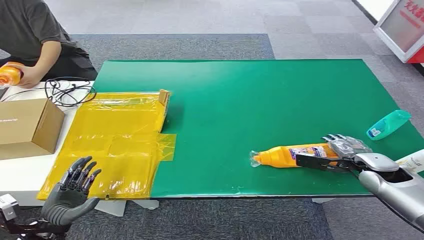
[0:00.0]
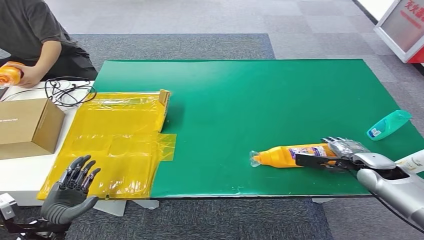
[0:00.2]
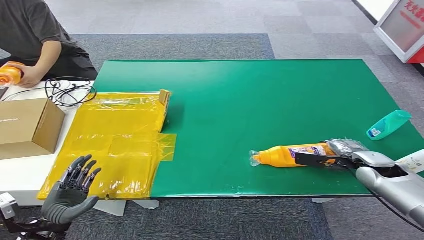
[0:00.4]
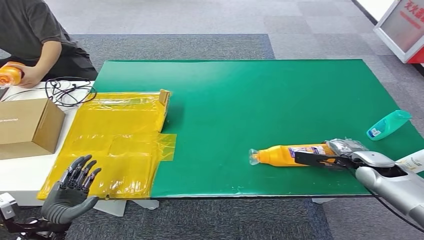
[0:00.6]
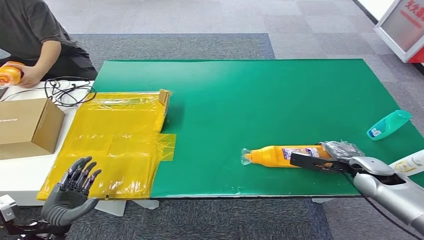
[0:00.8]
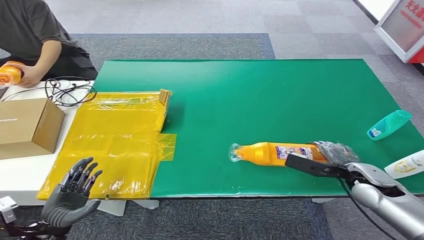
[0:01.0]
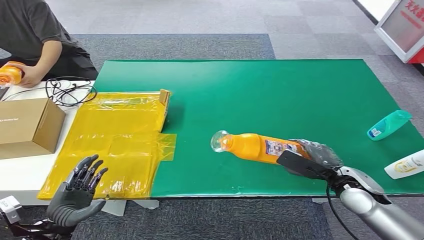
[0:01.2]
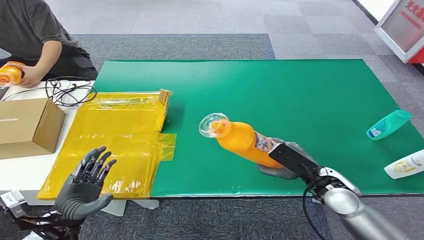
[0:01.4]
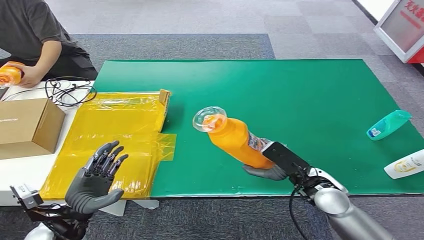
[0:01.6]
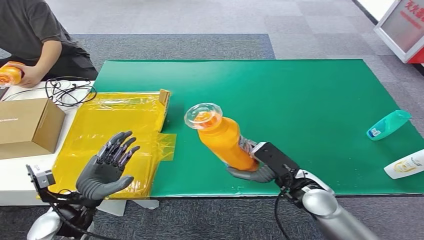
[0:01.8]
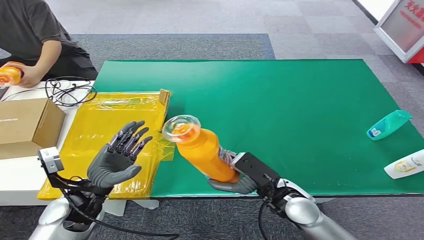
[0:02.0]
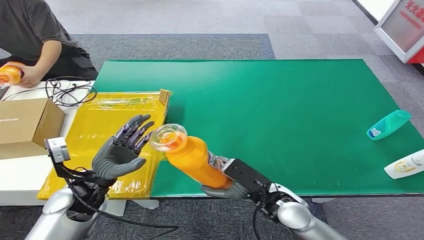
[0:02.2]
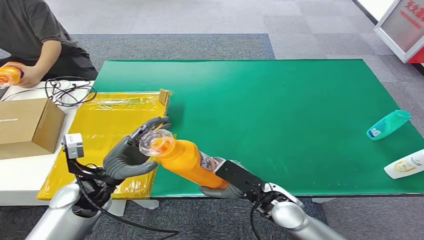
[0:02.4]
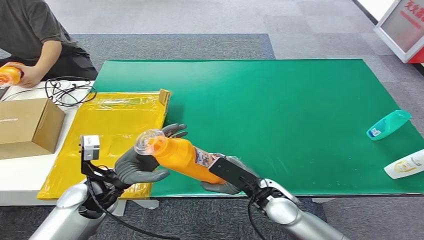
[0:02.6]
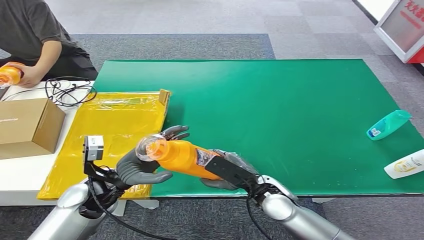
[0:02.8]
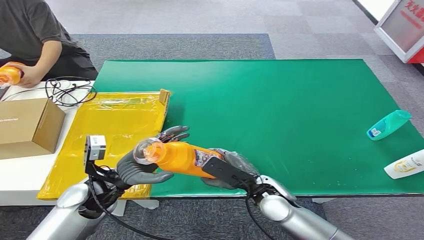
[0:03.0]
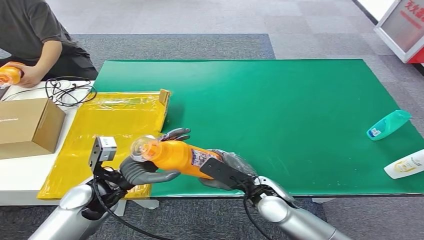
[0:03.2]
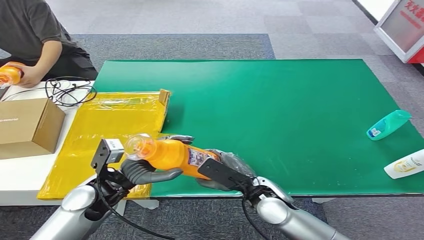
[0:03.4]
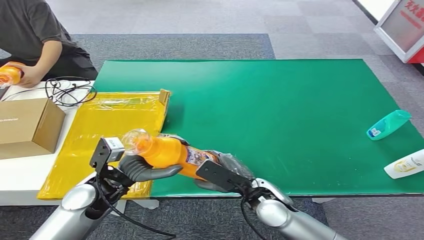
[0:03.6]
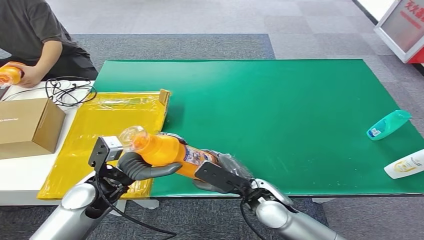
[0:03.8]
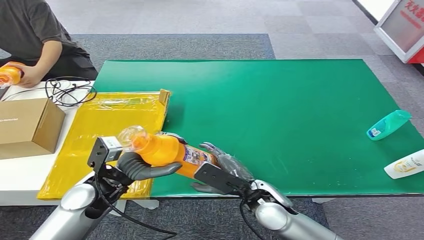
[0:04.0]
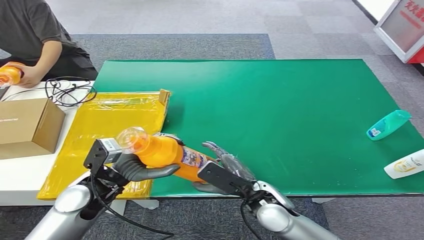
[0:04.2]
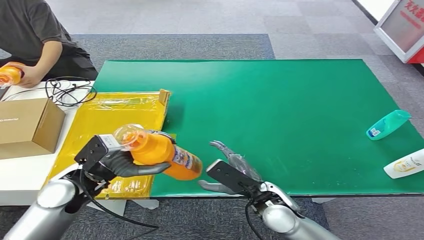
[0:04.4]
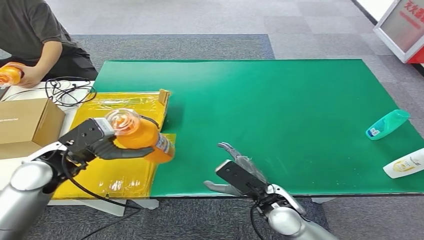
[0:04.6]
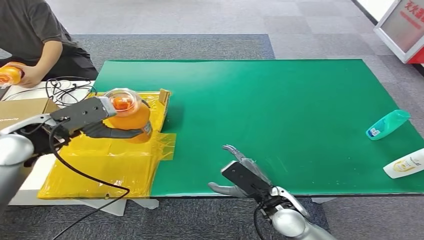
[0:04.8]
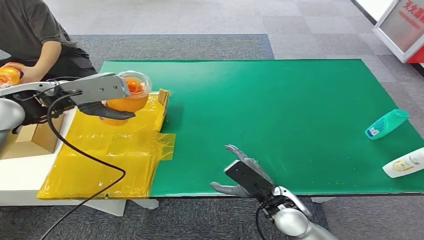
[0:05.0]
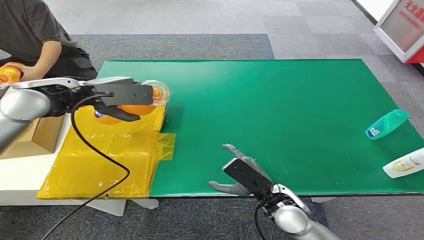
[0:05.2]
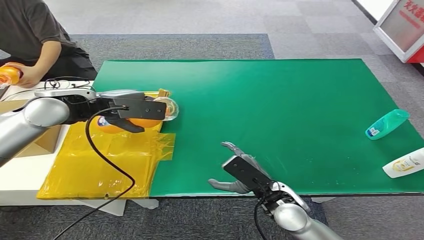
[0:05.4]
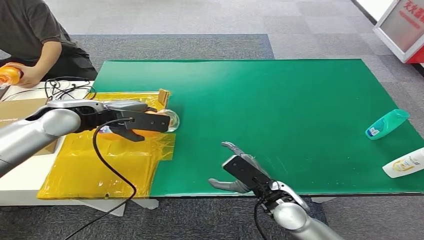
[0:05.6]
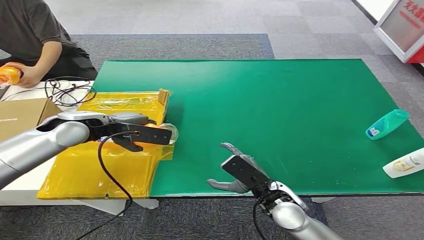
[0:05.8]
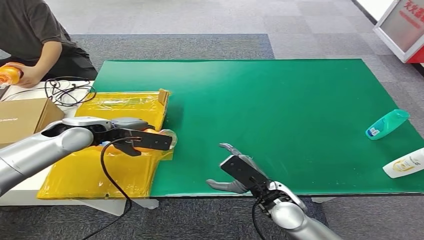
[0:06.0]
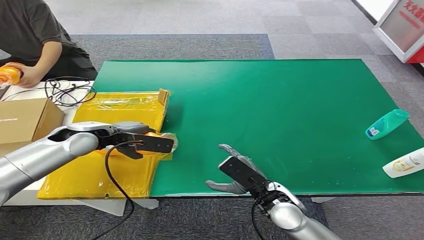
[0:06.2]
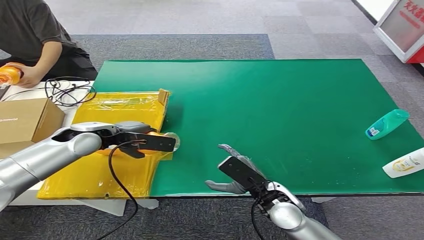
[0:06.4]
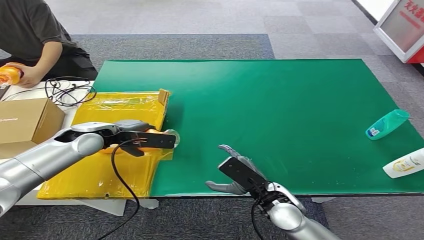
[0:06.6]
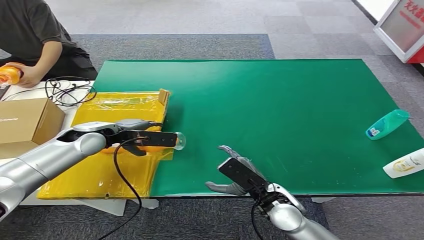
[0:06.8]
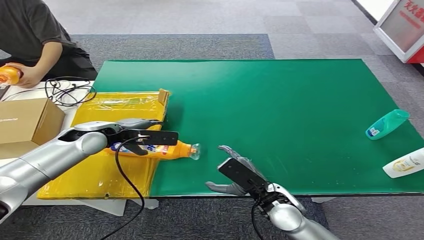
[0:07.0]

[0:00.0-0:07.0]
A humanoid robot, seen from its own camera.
Step, 0:00.0 to 0:01.6: Pick up the bottle from the table.
Step, 0:02.0 to 0:07.0: Turn the bottle to the front side.
0:01.4 to 0:02.8: The left hand moves forward, to the right and upward, about 15 cm; the right hand shifts about 15 cm to the left.
0:05.6 to 0:07.0: The left hand heads downward, covering approximately 10 cm.
